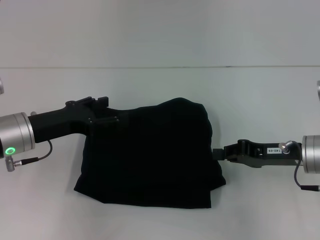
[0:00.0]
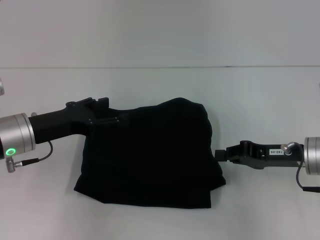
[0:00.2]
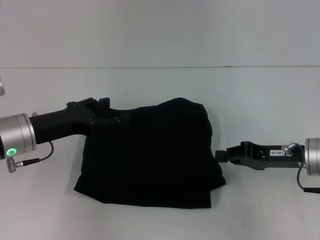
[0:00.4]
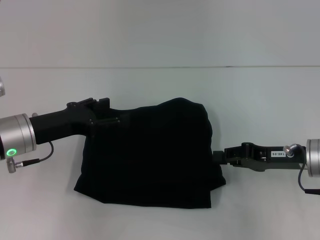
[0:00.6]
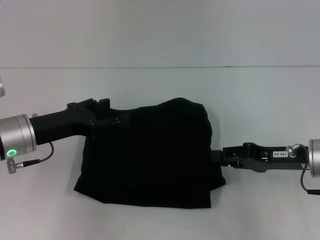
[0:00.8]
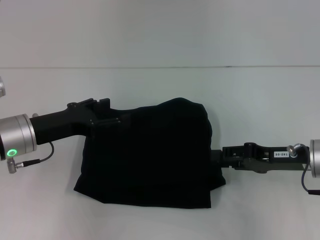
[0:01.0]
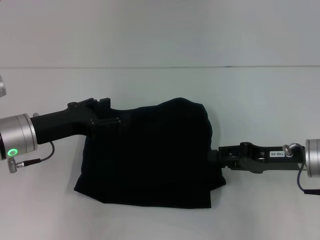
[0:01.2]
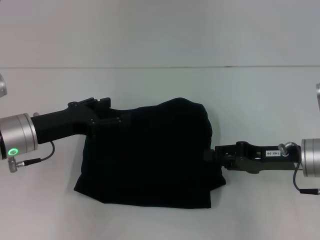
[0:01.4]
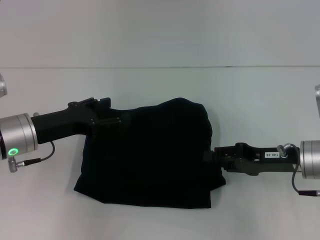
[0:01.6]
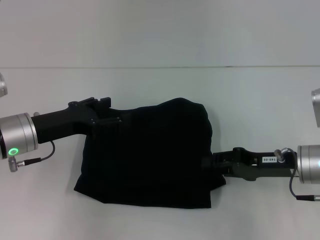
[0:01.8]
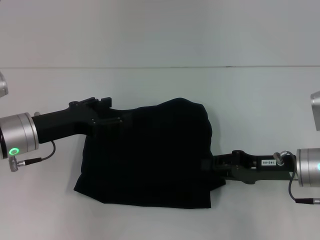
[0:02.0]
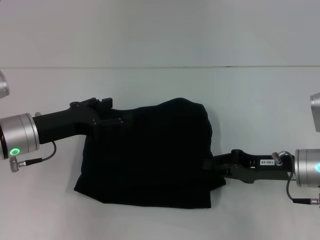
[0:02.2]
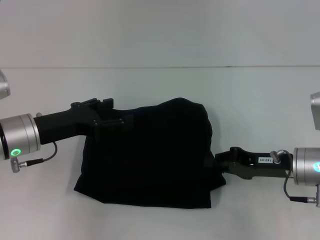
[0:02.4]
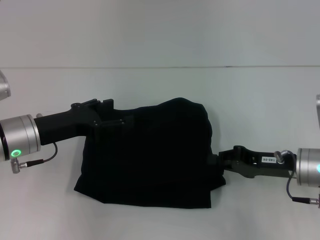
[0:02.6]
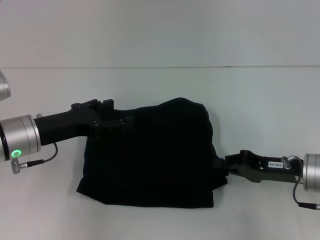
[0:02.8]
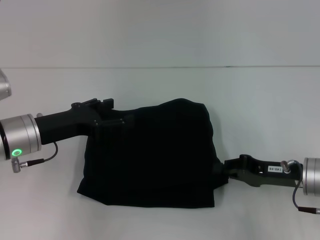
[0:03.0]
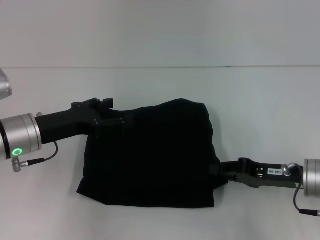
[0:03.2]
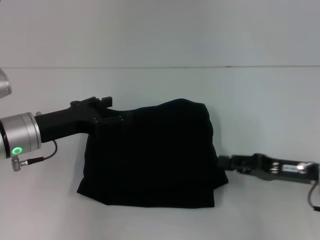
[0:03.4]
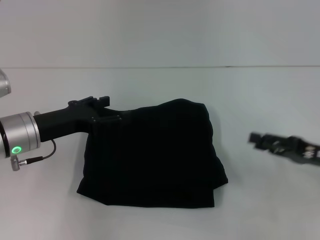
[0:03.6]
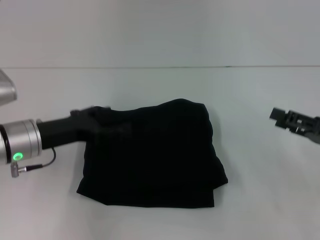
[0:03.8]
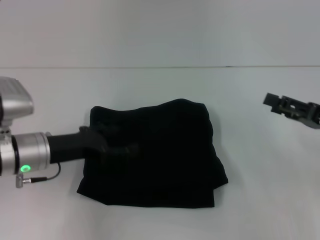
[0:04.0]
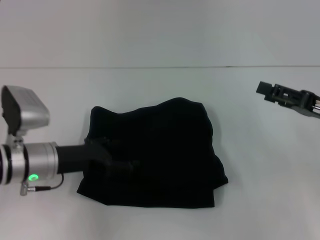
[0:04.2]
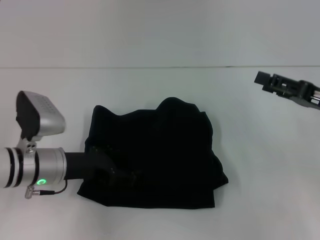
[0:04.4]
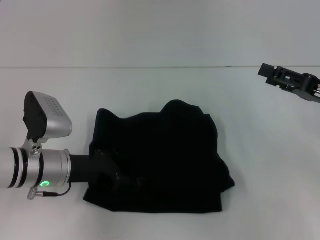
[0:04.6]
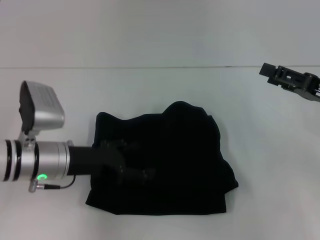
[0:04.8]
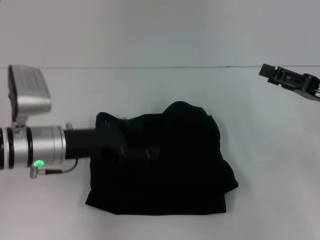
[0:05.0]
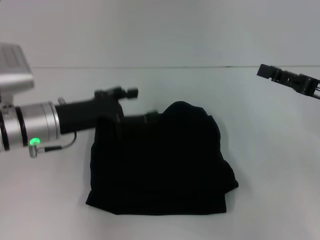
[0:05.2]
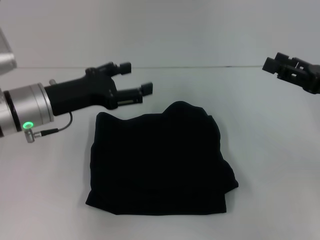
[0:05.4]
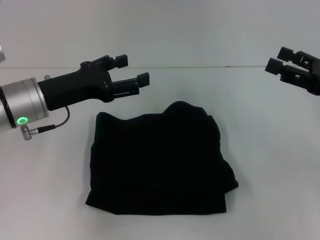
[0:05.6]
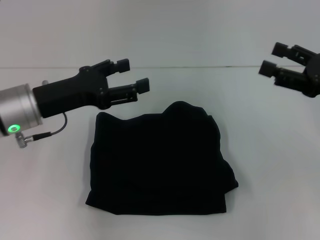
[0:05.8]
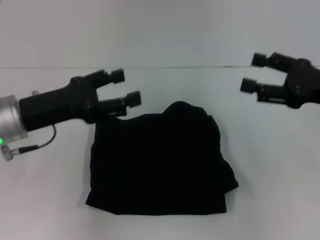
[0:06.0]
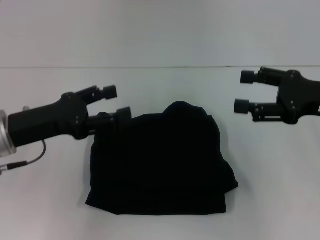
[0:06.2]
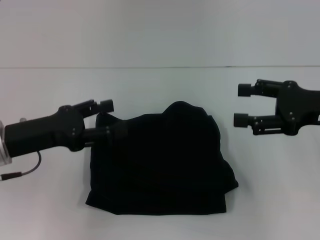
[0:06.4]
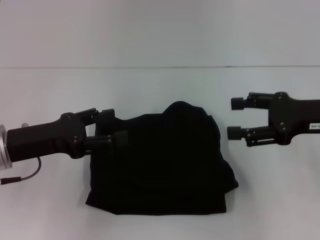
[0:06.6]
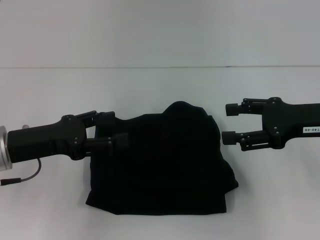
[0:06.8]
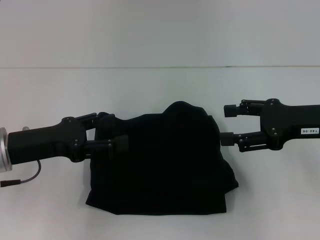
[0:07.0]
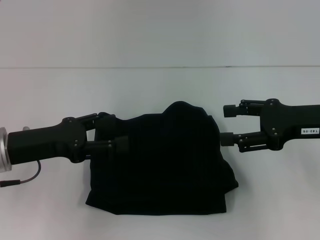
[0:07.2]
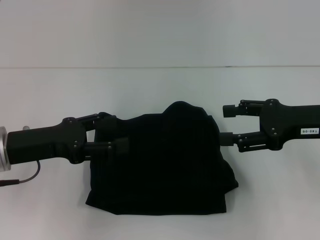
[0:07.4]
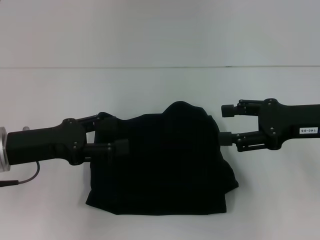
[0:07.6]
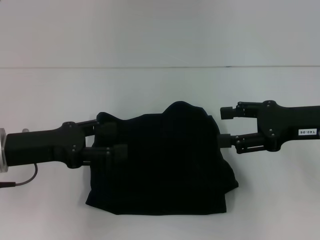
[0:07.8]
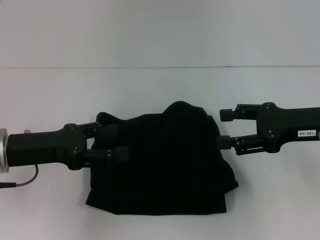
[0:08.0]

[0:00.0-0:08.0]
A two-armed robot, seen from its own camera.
0:00.0 to 0:01.6: The right gripper opens up.
0:01.6 to 0:03.2: The right gripper closes up.
0:03.2 to 0:04.8: The right gripper is displaced upward and to the right by some 10 cm, and opens.
0:04.8 to 0:06.4: The left gripper heads to the left, covering some 5 cm.
0:06.4 to 0:08.0: The grippers move only a little.
